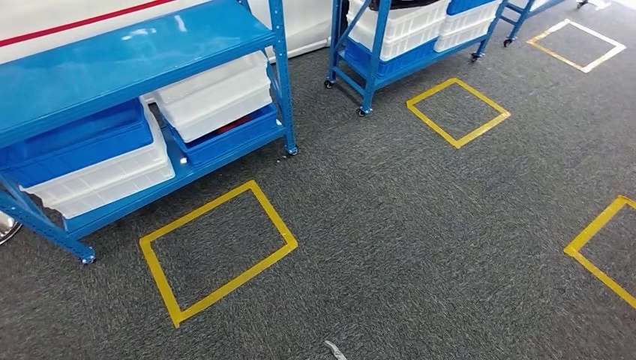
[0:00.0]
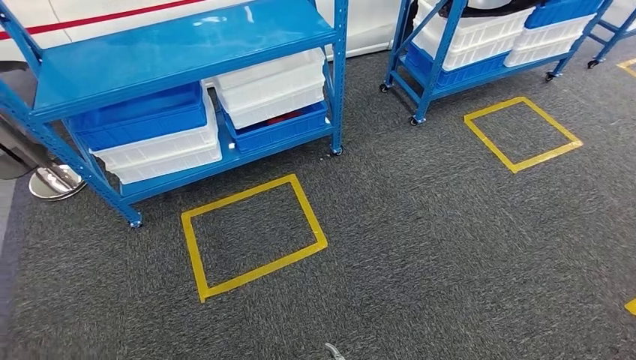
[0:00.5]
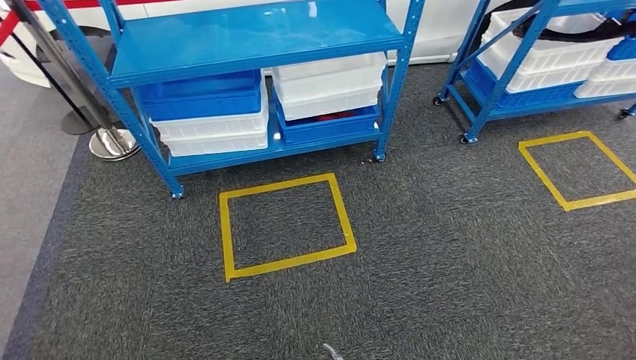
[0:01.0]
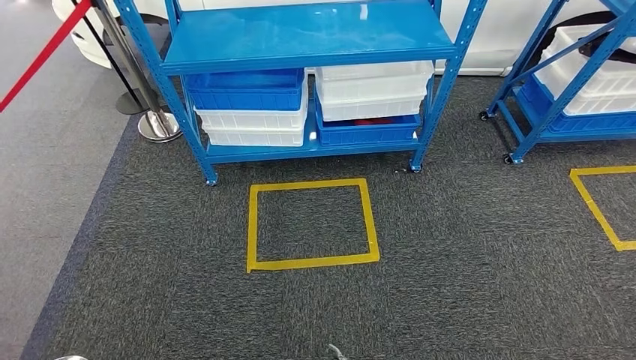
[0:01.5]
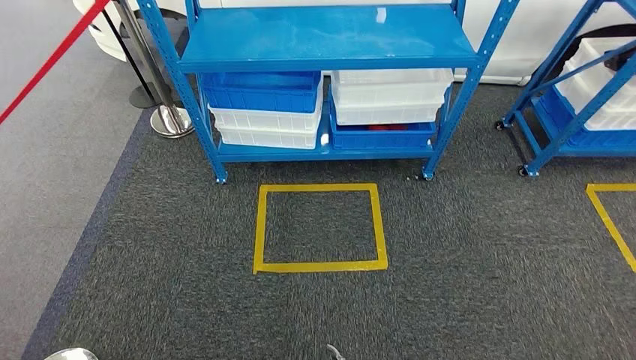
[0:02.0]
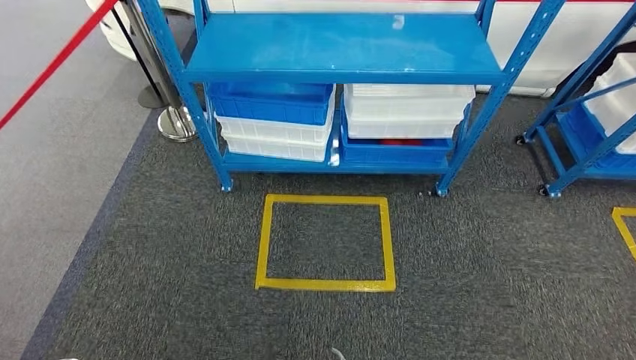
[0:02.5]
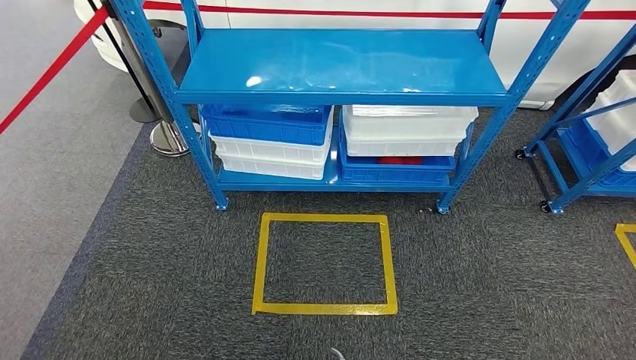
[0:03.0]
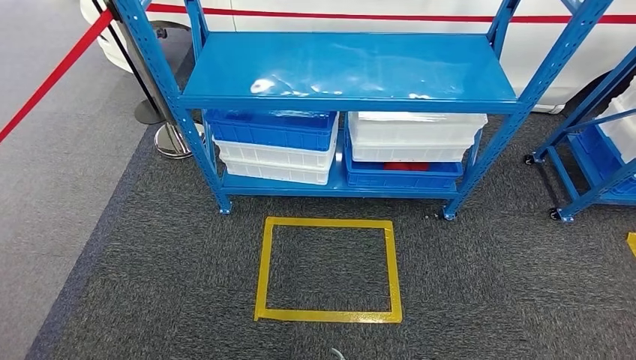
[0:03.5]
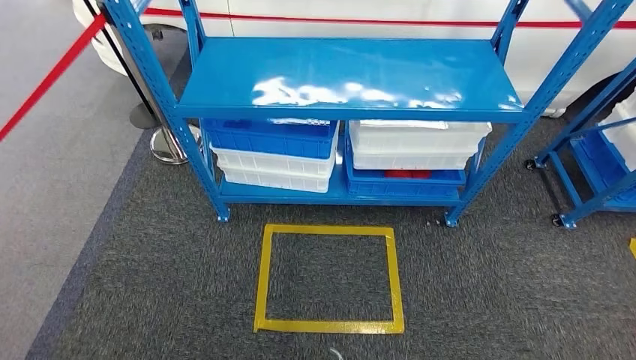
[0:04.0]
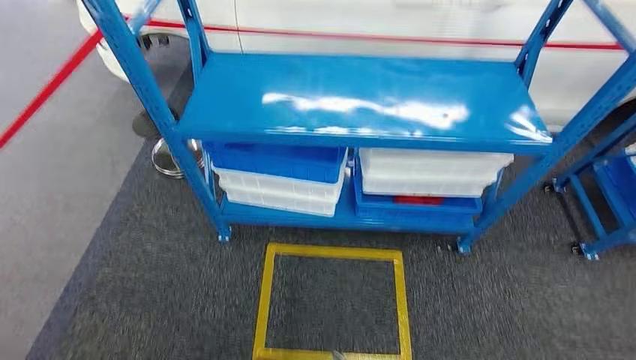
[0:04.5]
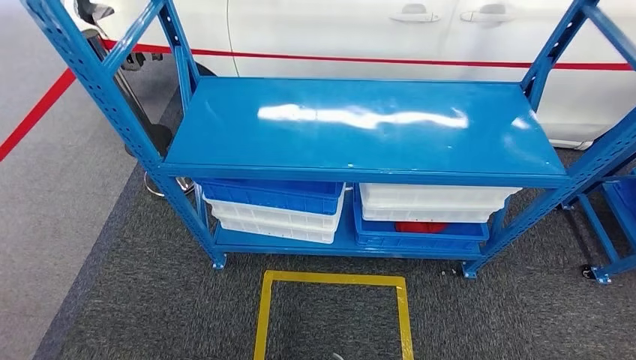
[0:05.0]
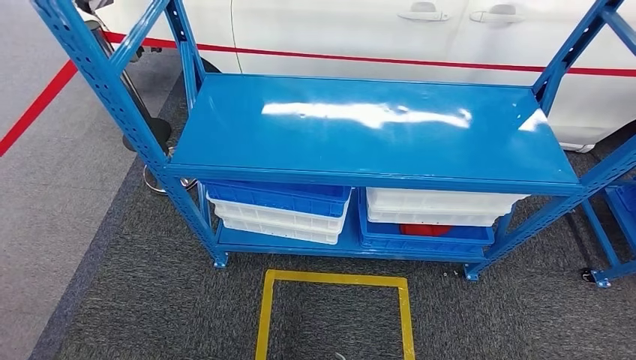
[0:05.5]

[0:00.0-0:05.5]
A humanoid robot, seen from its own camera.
Step, 0:00.0 to 0:05.0: Move to the initial position of the shelf.
